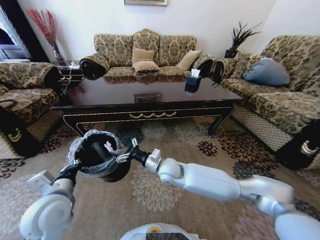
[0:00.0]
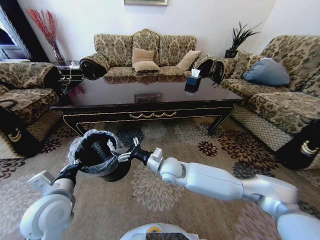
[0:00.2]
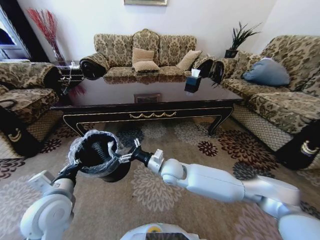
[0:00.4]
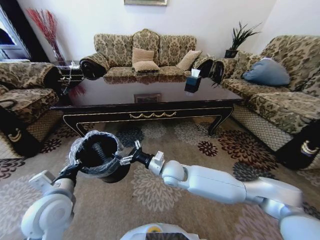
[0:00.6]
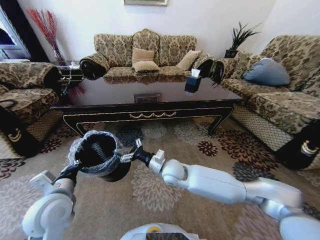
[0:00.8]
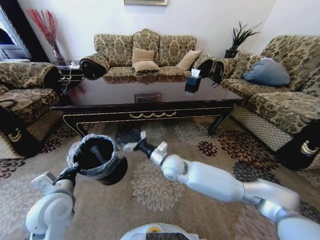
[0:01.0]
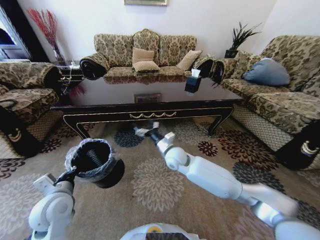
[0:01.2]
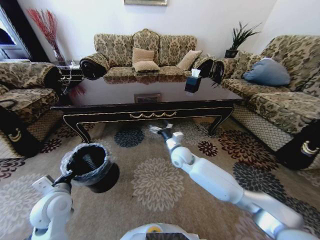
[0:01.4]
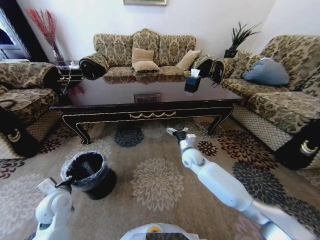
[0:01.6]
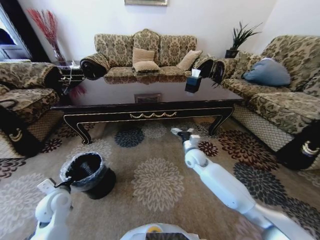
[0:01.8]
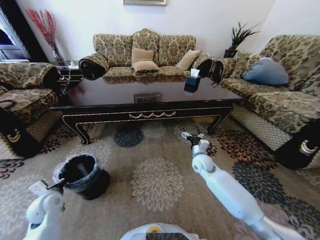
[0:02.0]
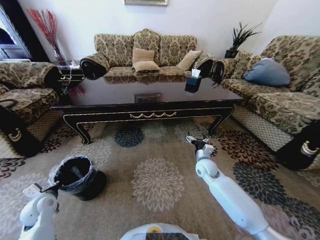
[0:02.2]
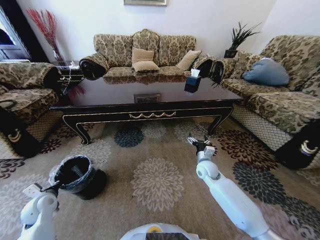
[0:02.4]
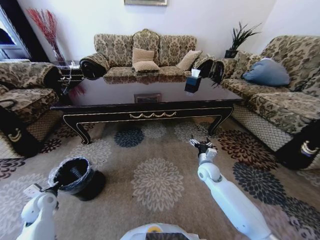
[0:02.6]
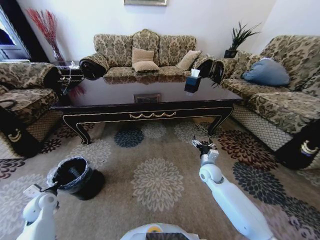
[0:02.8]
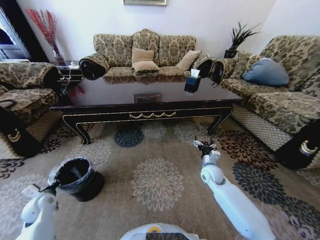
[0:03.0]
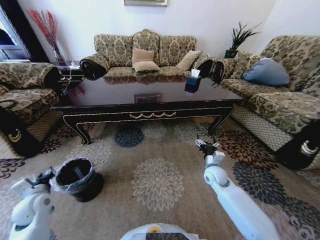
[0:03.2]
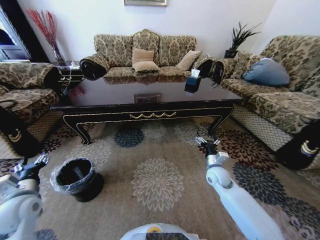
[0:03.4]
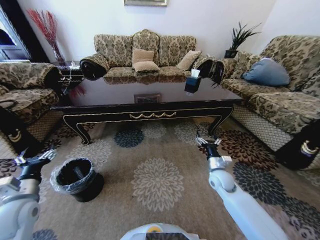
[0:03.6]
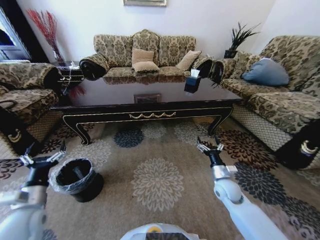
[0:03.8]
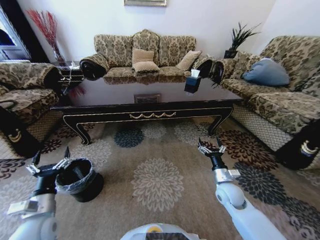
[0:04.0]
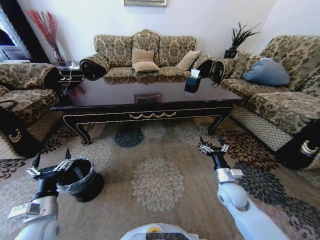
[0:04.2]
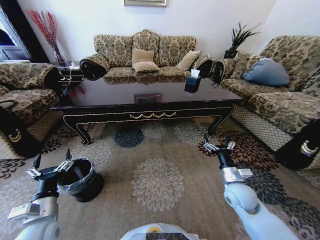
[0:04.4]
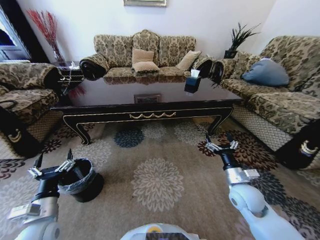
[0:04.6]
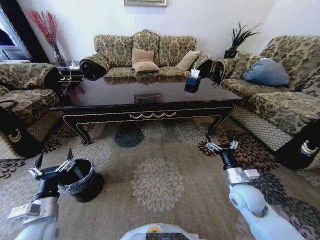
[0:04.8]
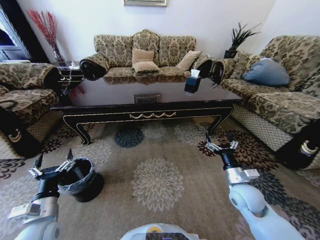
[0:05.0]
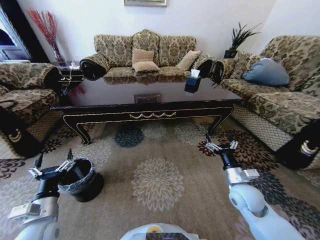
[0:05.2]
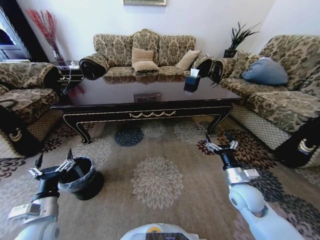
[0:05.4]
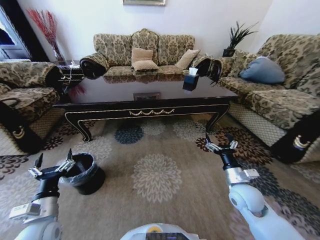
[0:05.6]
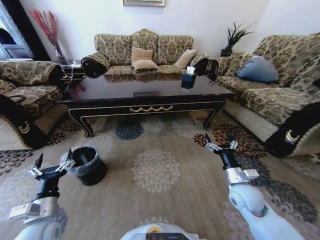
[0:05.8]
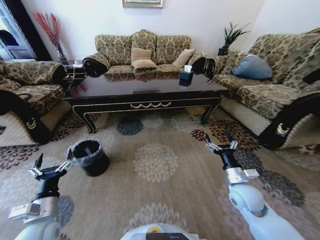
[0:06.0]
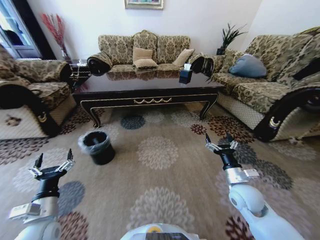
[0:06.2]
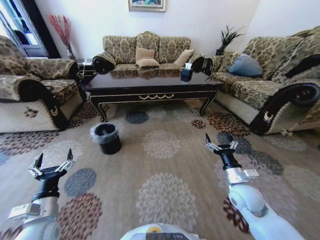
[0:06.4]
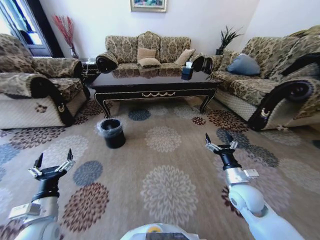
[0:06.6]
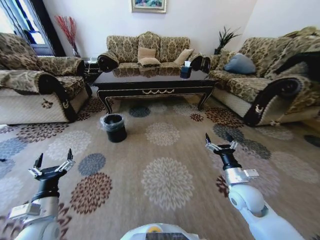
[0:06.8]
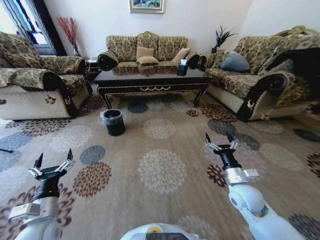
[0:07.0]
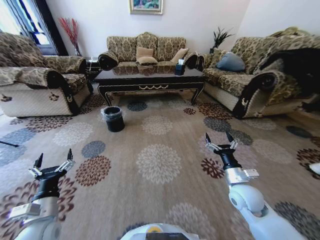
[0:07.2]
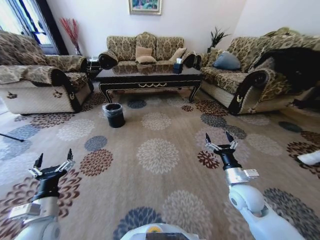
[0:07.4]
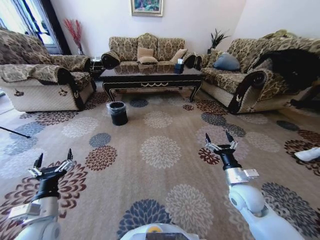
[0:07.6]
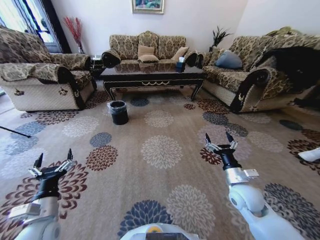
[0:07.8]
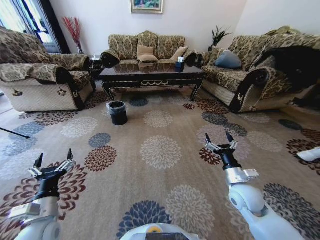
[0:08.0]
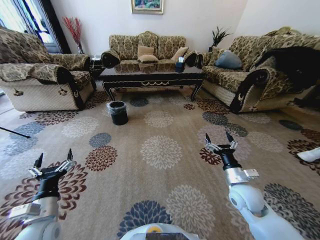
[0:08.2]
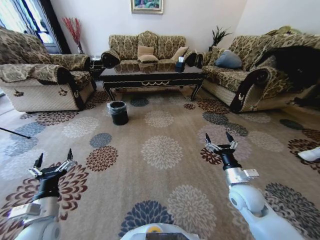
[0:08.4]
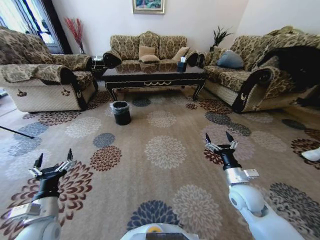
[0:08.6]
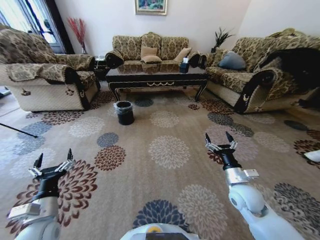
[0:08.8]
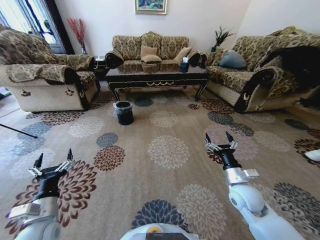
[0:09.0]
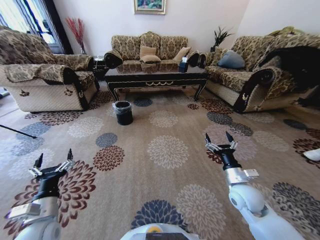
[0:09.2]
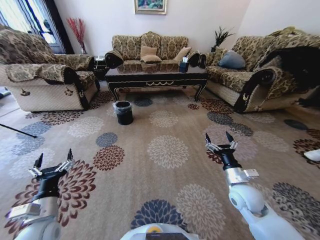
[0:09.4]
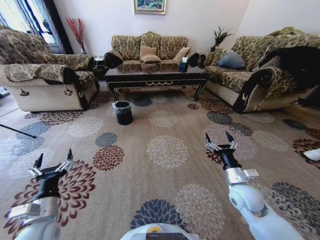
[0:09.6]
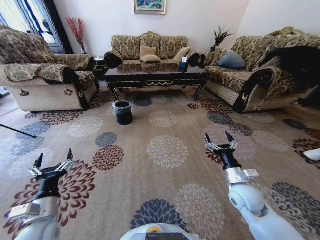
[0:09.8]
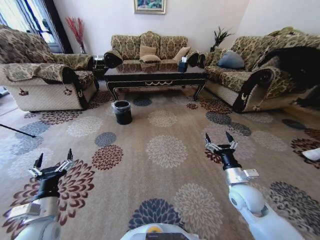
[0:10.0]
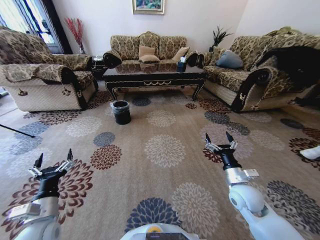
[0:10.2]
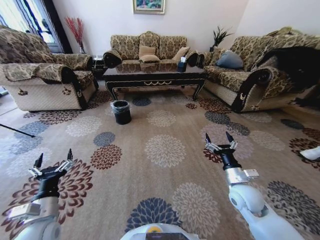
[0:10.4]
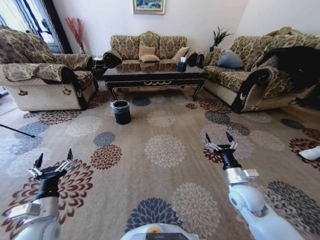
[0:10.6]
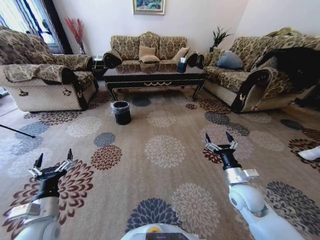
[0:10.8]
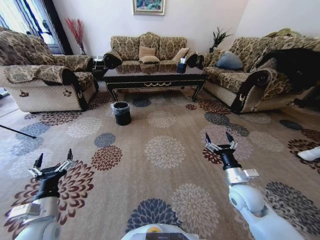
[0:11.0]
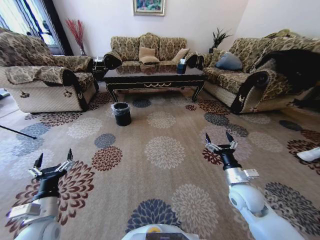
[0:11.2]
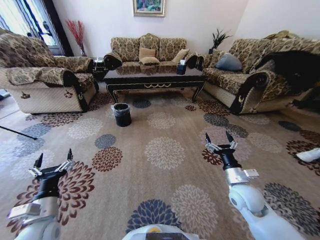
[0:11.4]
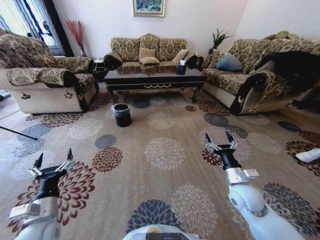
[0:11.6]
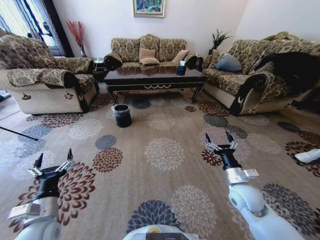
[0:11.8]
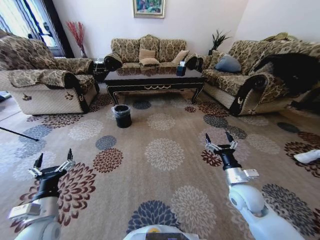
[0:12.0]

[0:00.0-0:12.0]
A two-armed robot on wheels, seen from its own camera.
Task of the whole recording: Move to the front of the table and pick up the trash from the floor, then place it into the trash bin.
0:00.0 to 0:01.6: The left gripper is displaced downward and to the left by some 10 cm. The right gripper shifts roughly 15 cm to the right and forward.
0:01.6 to 0:03.0: The left gripper goes roughly 15 cm to the left and downward, while the right gripper moves to the right, downward and backward, roughly 15 cm.
0:03.0 to 0:04.4: The left gripper travels to the right, backward and upward by approximately 20 cm, and opens its fingers, while the right gripper heads backward and upward, covering approximately 10 cm.
0:09.0 to 0:10.4: Neither gripper changes place.
